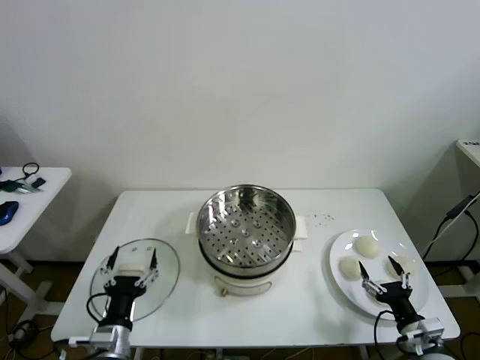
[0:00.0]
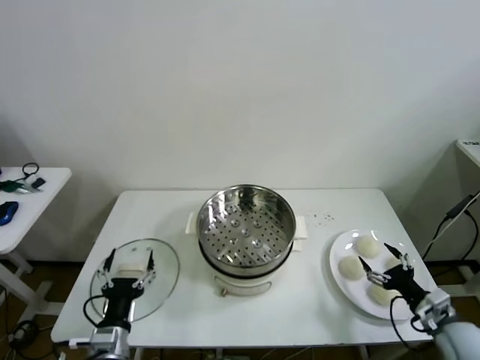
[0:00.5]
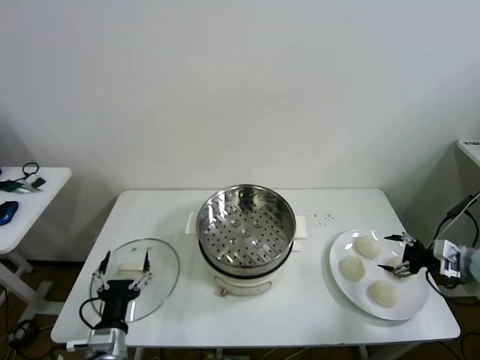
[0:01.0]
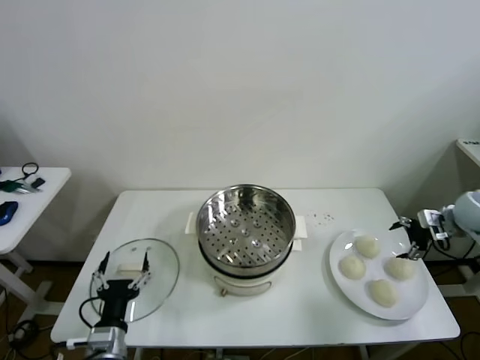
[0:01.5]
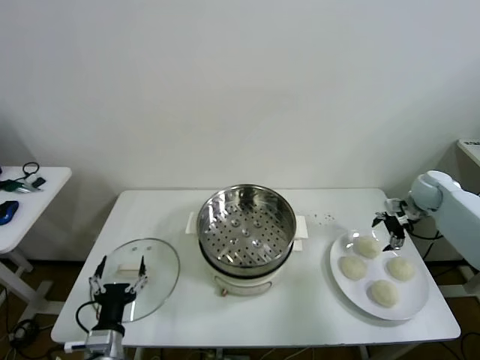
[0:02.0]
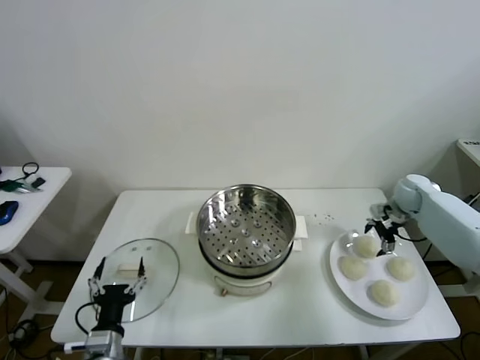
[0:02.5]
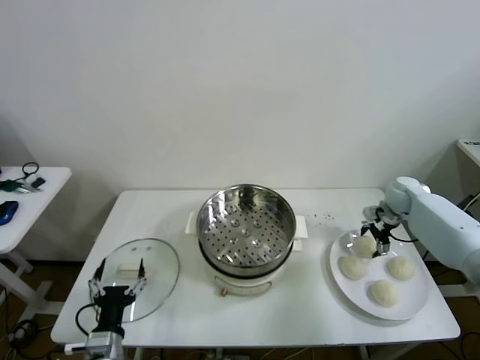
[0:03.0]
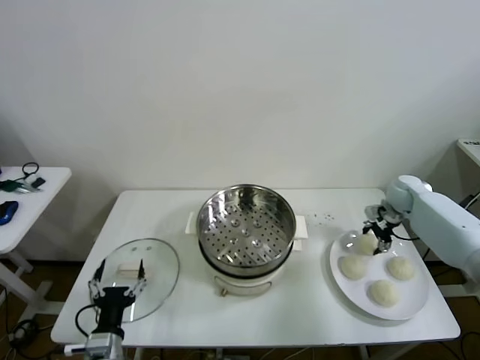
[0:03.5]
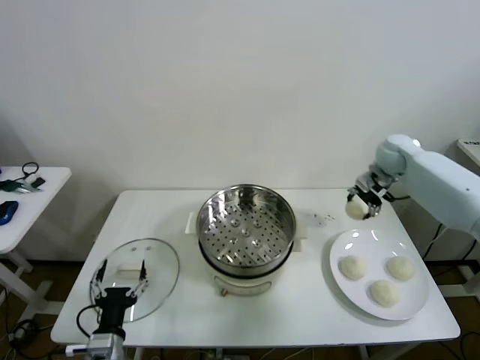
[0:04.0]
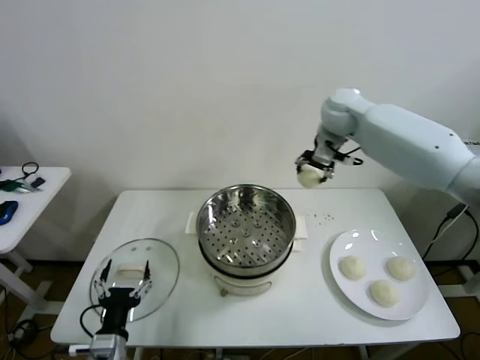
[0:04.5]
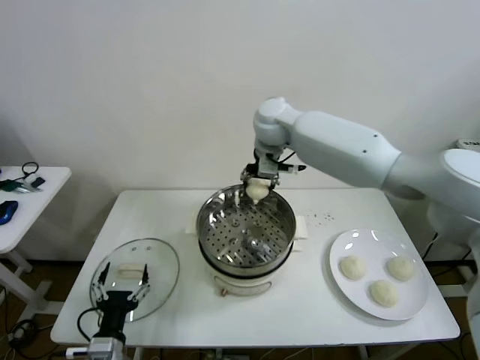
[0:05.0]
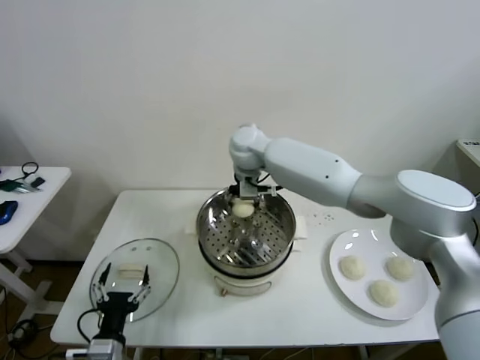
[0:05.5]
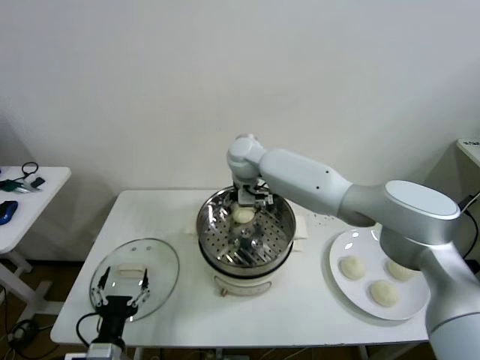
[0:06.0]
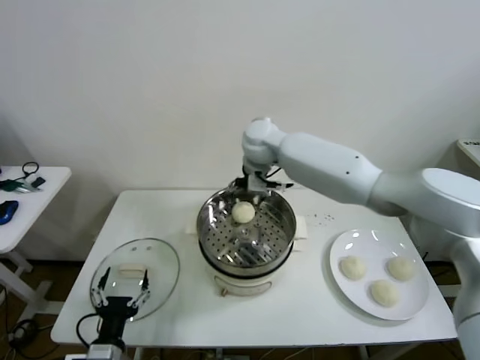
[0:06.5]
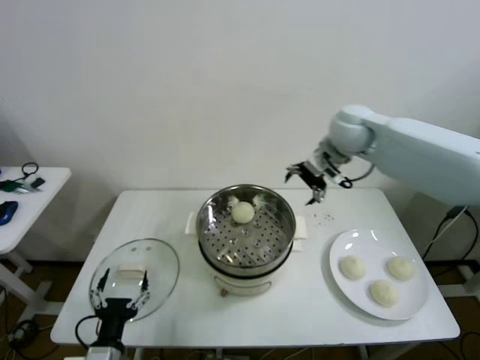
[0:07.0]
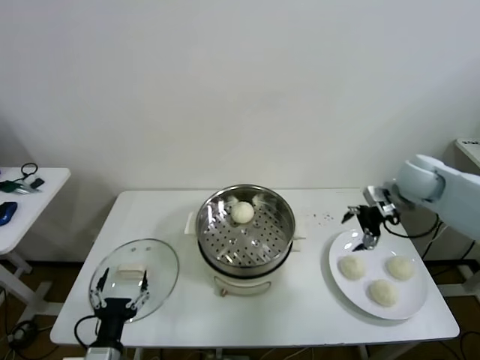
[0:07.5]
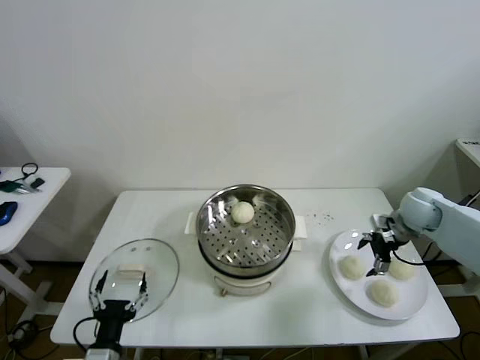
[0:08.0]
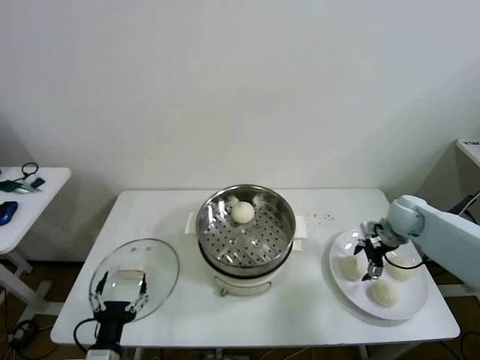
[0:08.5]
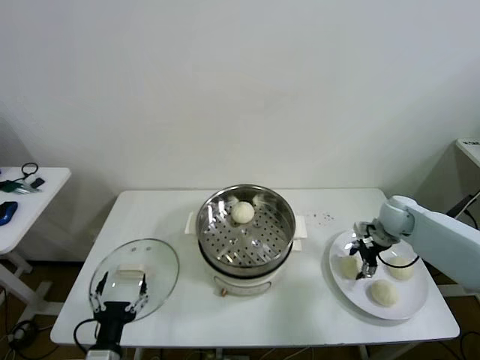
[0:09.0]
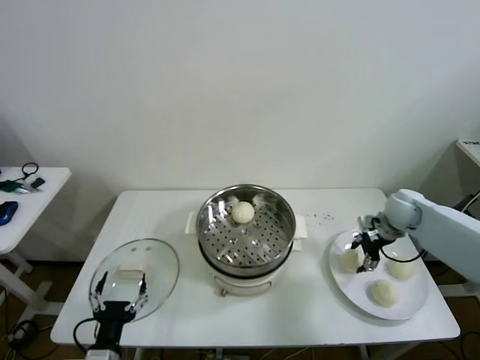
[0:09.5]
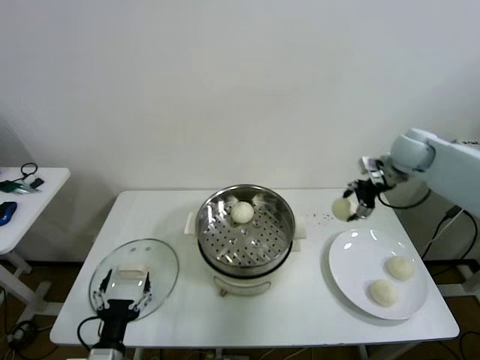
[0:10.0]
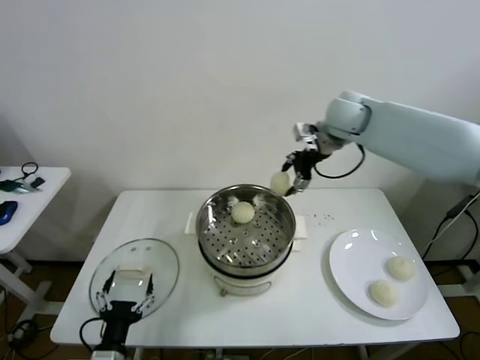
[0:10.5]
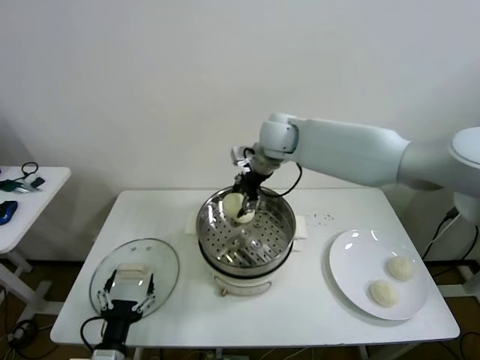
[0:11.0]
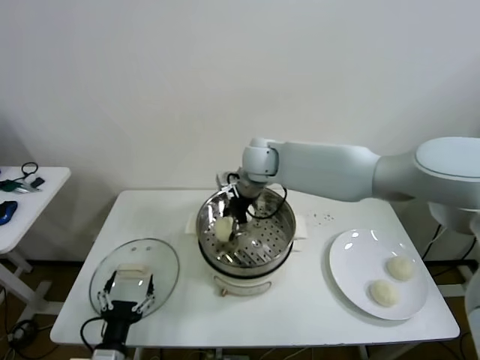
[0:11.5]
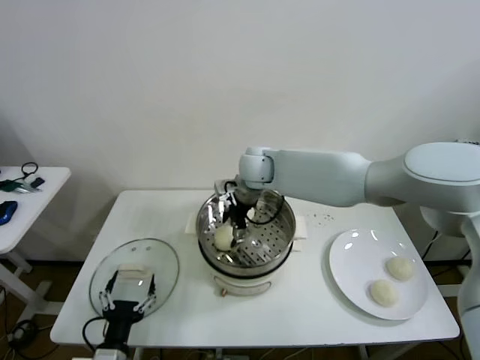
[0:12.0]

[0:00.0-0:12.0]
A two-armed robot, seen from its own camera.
Task of the whole recording: take steamed baozi put them in steamer then cover it.
Step, 0:00.0 to 0:03.0: Grasp the baozi in the plate with right gripper.
Step, 0:03.5 to 0:06.0: Place the baozi on the steamer with right gripper.
Step, 0:06.5 to 0:09.0: Grasp the baozi in the plate with right gripper.
0:02.0 to 0:04.0: The right gripper is displaced upward, to the left and forward by roughly 20 cm, and closes up.
0:04.0 to 0:06.0: The right gripper moves to the left, roughly 35 cm, and opens up.
0:06.0 to 0:08.0: The right gripper heads to the right, covering about 40 cm.
0:08.0 to 0:10.0: The right gripper shifts approximately 15 cm upward and forward, and closes its fingers.
0:10.0 to 0:12.0: The right gripper is displaced to the left by approximately 35 cm, and opens.

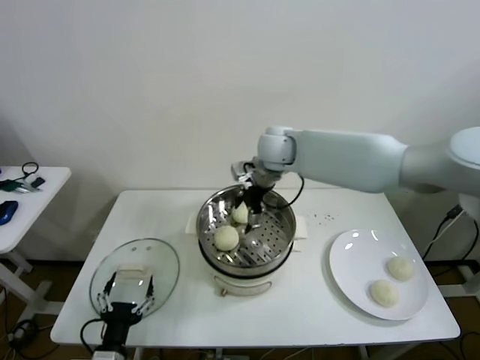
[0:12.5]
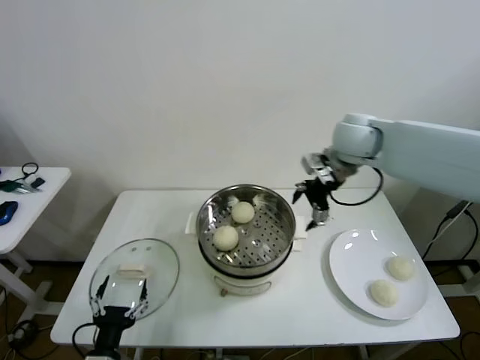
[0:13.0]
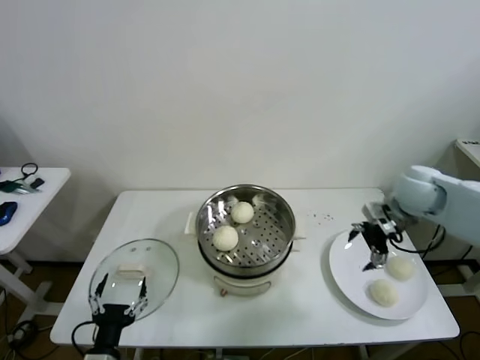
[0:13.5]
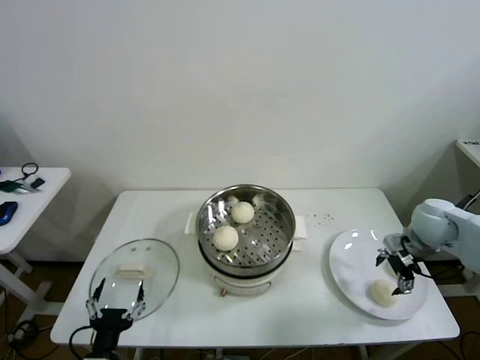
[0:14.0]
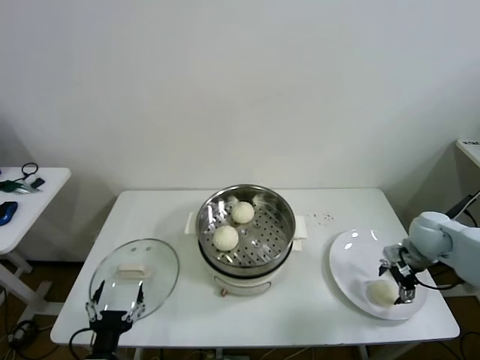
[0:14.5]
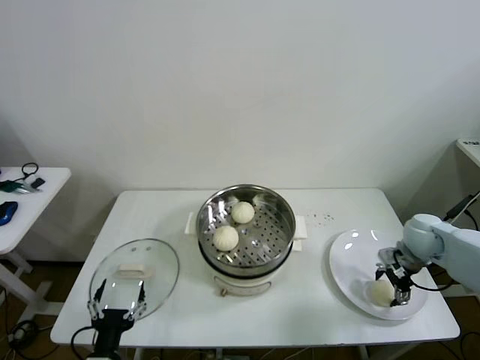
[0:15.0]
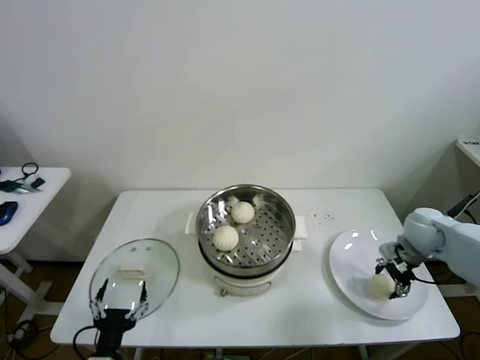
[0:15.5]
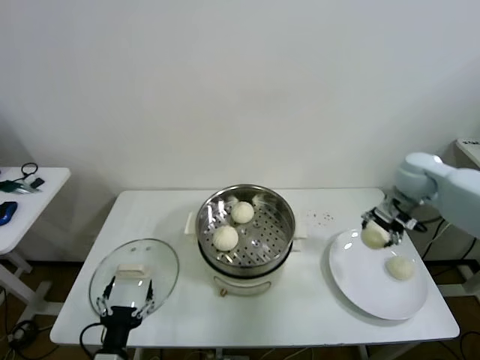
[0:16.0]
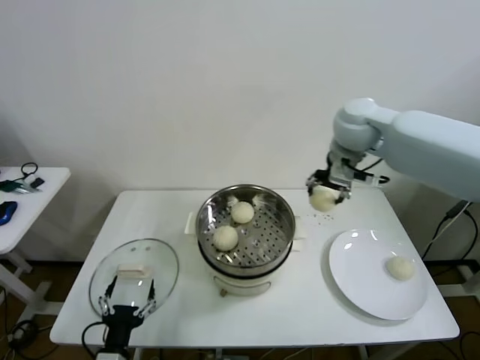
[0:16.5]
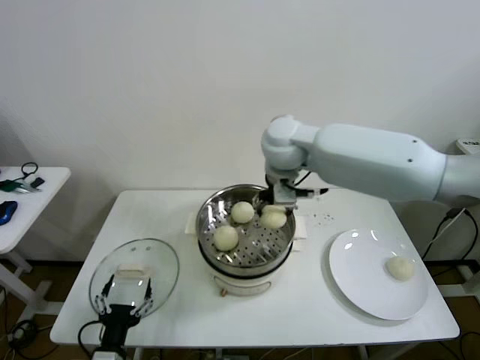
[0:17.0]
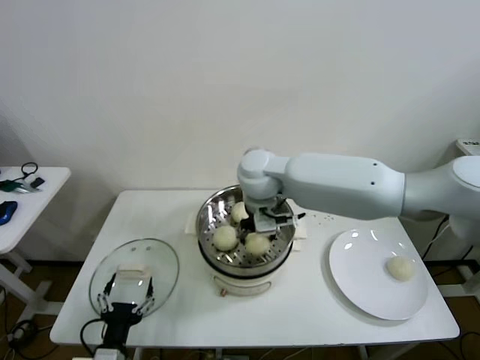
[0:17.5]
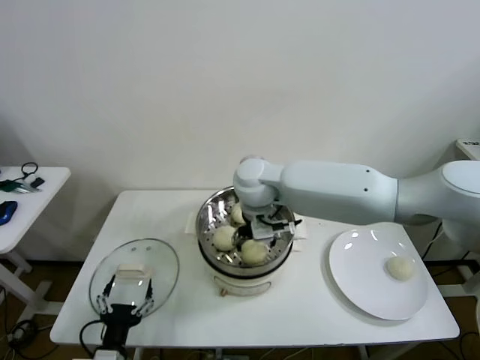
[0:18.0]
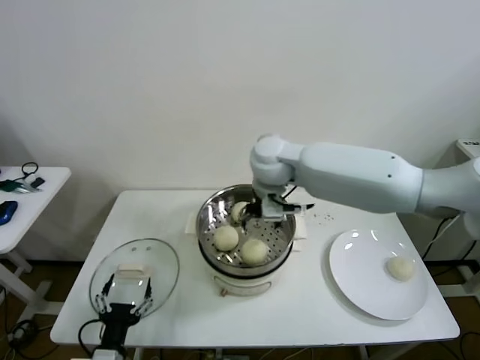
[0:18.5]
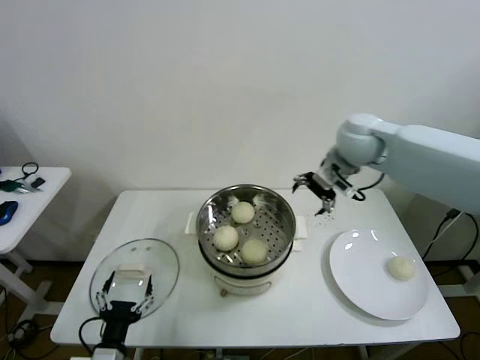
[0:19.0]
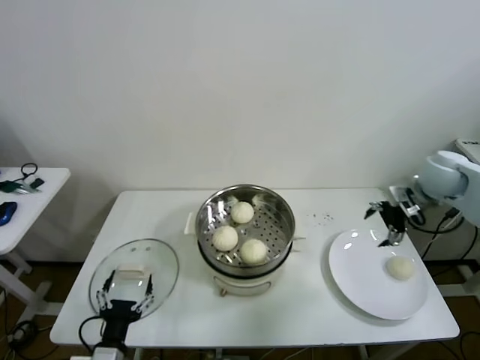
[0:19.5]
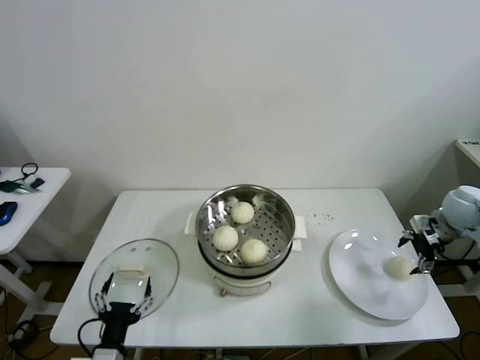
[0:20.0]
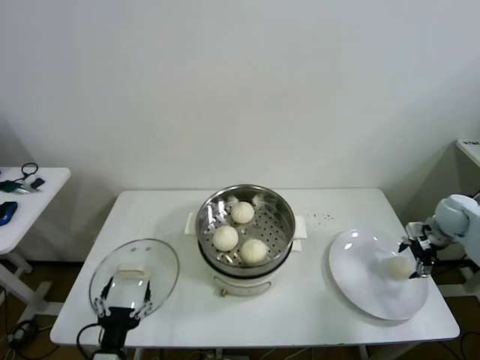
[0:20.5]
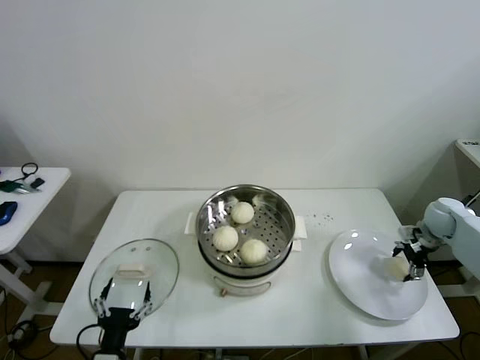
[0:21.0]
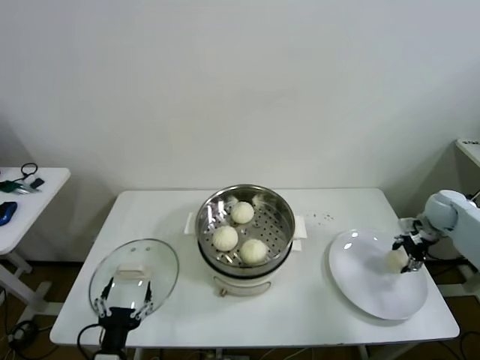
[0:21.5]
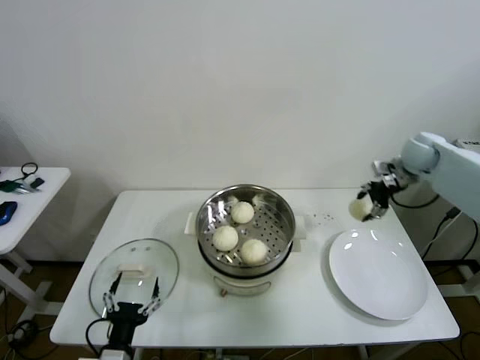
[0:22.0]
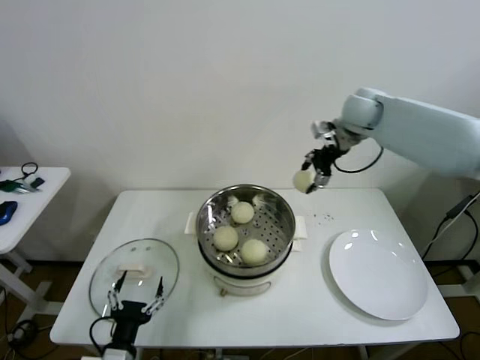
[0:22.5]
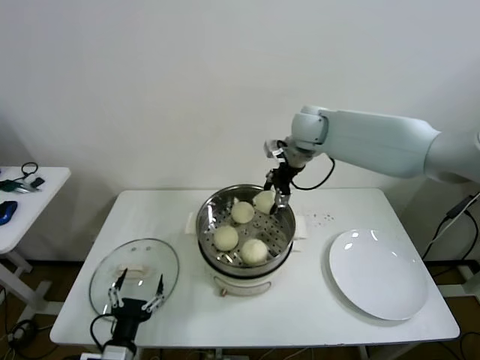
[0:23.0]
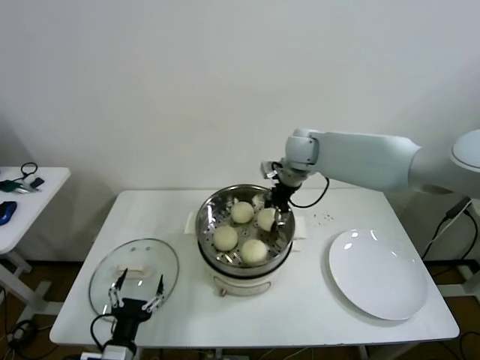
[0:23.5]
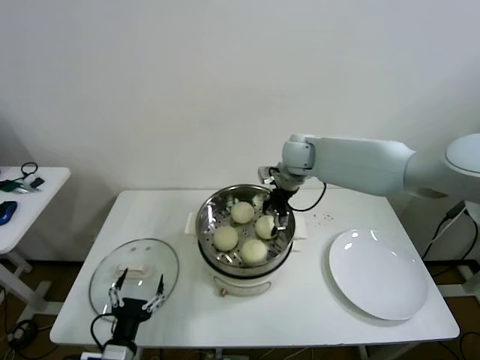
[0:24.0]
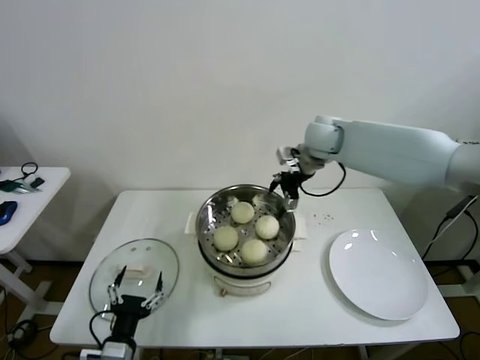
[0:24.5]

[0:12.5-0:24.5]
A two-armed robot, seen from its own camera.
Task of the whole recording: take steamed baozi put them in steamer then cover it.
Step, 0:12.5 to 0:15.0: Grasp the baozi in the plate with right gripper.
Step, 0:15.5 to 0:18.0: Place the baozi on the steamer with right gripper.
Step, 0:18.5 to 0:21.0: Grasp the baozi in the plate with right gripper.
Step, 0:21.5 to 0:24.0: Place the baozi on the steamer with right gripper.
0:12.5 to 0:14.5: The right gripper heads to the right and downward, covering roughly 40 cm.
0:14.5 to 0:16.5: The right gripper moves upward and to the left, about 35 cm, and closes its fingers.
0:16.5 to 0:18.5: The right gripper travels to the left and downward by approximately 15 cm, and opens up.
0:18.5 to 0:20.5: The right gripper is displaced to the right by some 50 cm.
0:20.5 to 0:22.5: The right gripper is displaced to the left, upward and forward by about 35 cm, and closes its fingers.
0:22.5 to 0:24.5: The right gripper moves to the left and downward, about 10 cm, and opens.

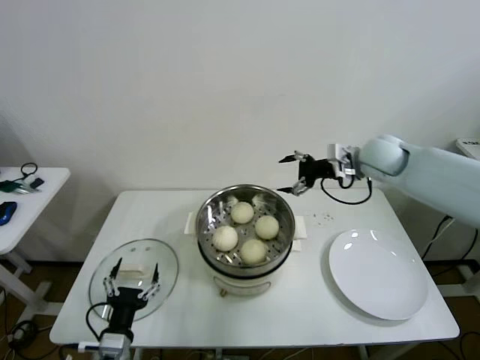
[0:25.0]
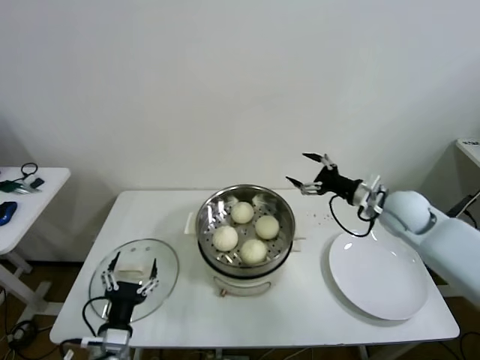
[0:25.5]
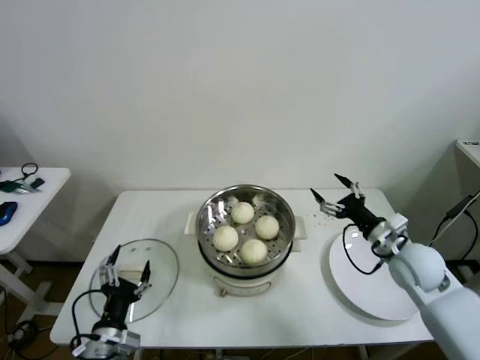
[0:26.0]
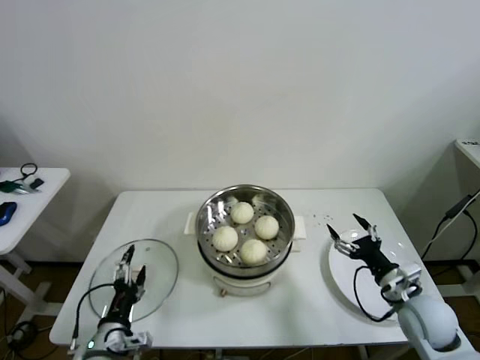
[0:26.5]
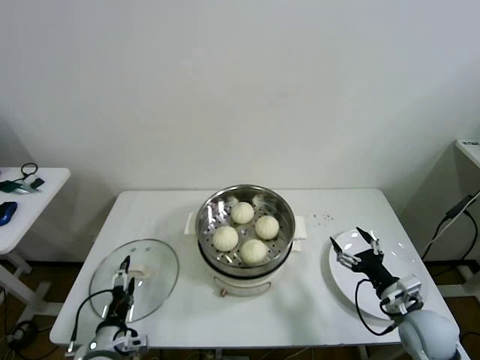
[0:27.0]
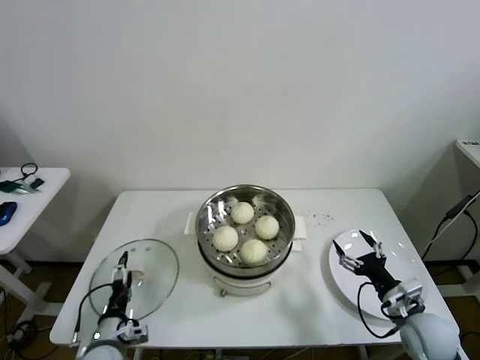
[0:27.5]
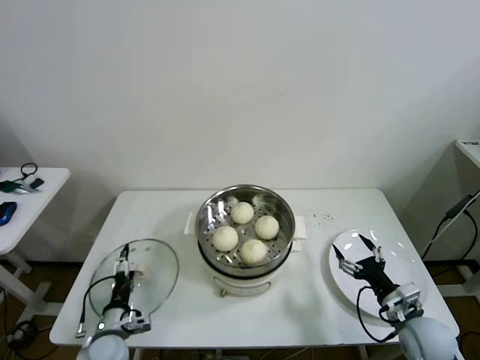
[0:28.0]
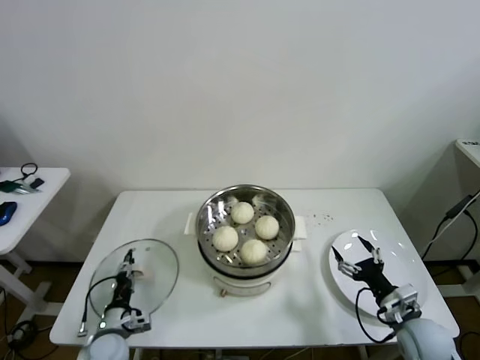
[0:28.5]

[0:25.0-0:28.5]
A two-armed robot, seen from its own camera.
Task of the whole recording: take steamed baozi put them in steamer then cover it.
0:25.0 to 0:27.0: The right gripper moves backward and downward, roughly 35 cm. Meanwhile the left gripper shifts by about 5 cm.
0:27.0 to 0:28.5: The left gripper goes some 10 cm forward and downward, and closes its fingers.
